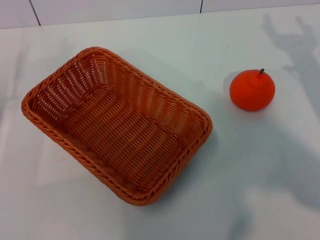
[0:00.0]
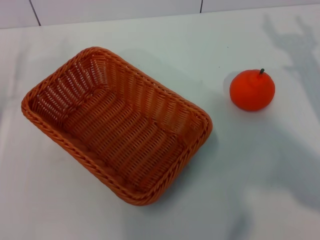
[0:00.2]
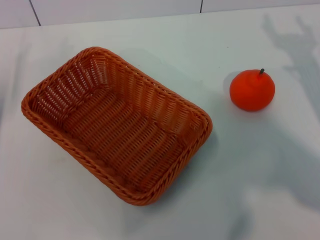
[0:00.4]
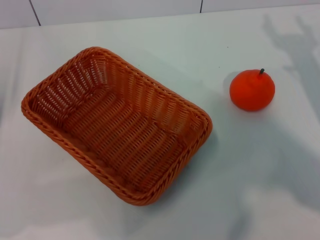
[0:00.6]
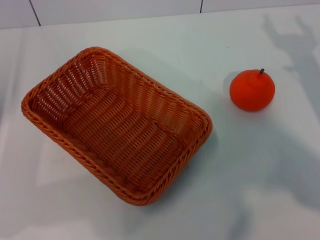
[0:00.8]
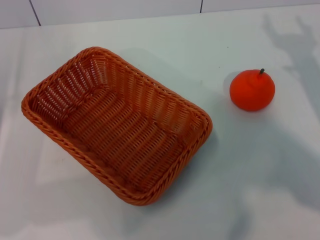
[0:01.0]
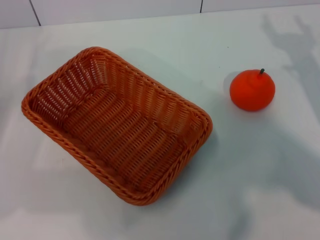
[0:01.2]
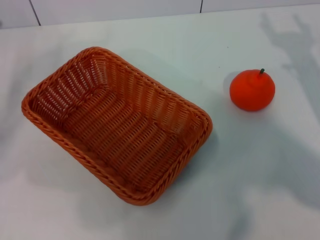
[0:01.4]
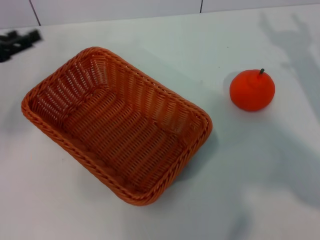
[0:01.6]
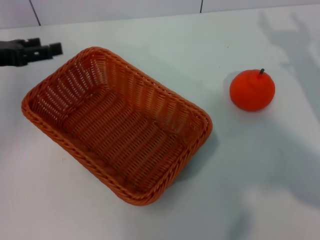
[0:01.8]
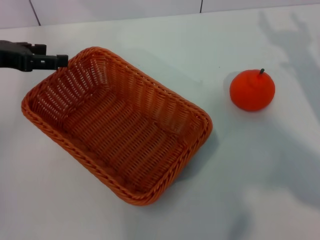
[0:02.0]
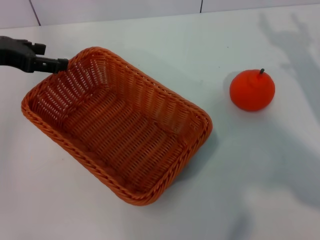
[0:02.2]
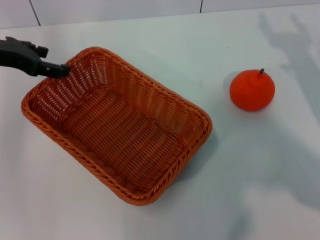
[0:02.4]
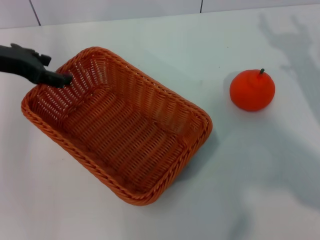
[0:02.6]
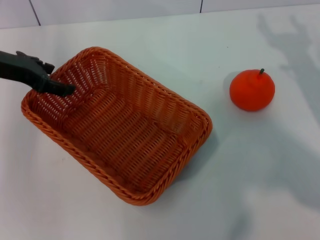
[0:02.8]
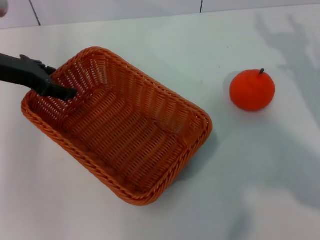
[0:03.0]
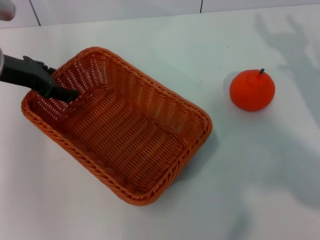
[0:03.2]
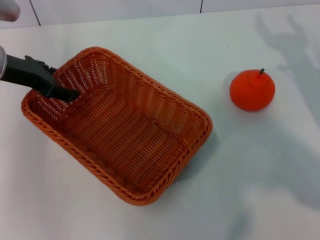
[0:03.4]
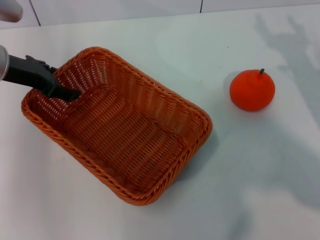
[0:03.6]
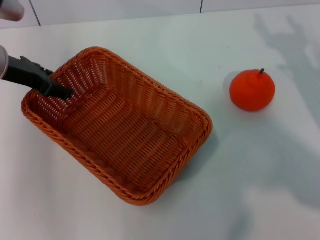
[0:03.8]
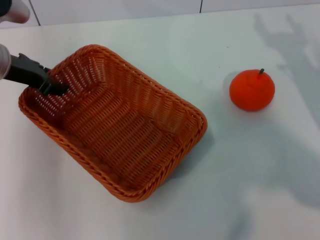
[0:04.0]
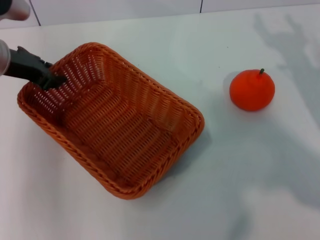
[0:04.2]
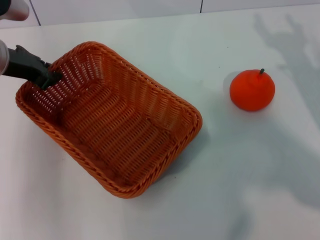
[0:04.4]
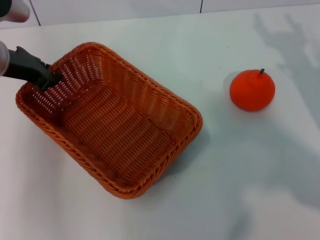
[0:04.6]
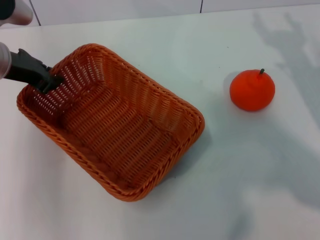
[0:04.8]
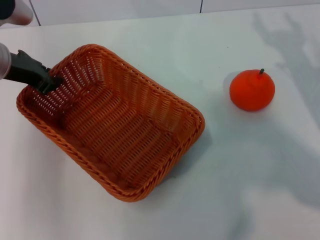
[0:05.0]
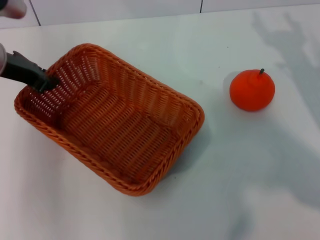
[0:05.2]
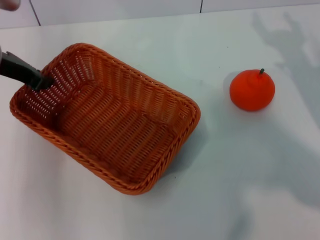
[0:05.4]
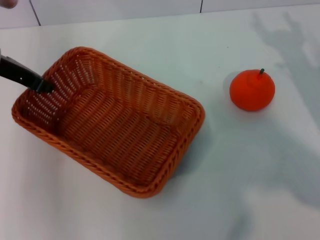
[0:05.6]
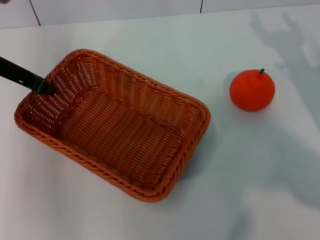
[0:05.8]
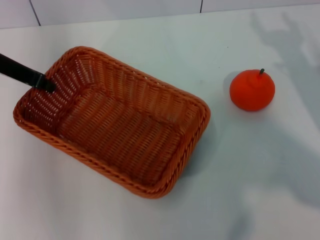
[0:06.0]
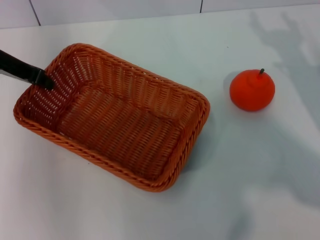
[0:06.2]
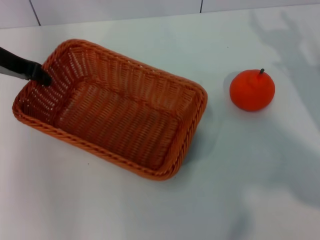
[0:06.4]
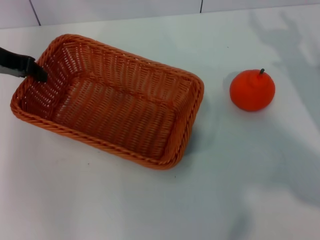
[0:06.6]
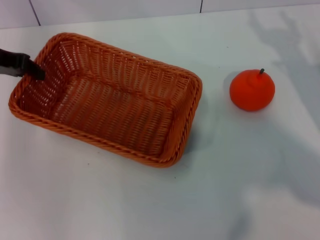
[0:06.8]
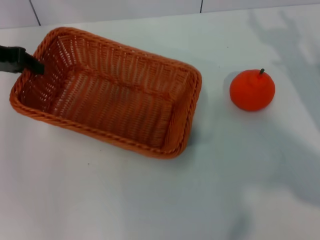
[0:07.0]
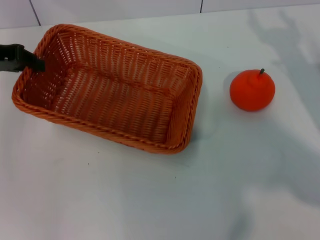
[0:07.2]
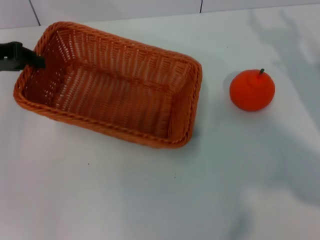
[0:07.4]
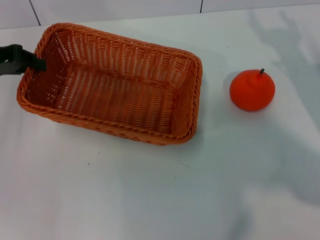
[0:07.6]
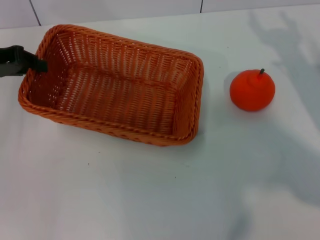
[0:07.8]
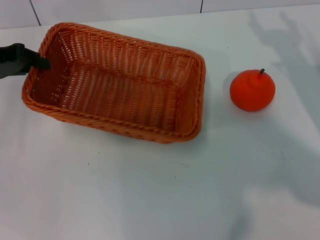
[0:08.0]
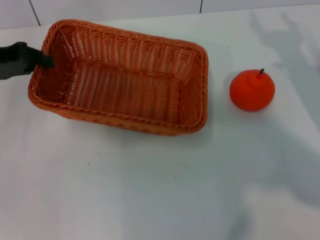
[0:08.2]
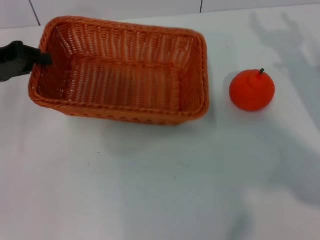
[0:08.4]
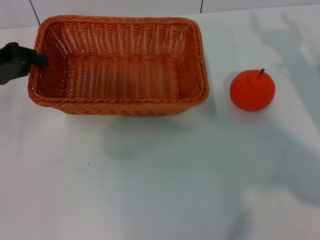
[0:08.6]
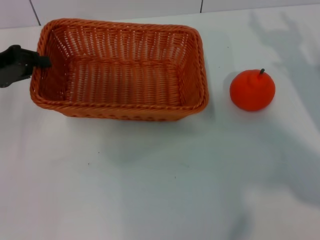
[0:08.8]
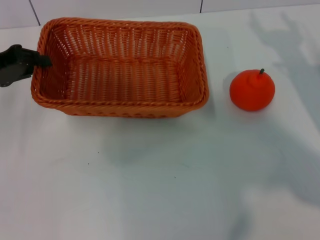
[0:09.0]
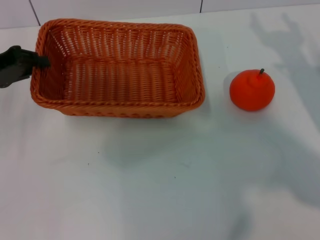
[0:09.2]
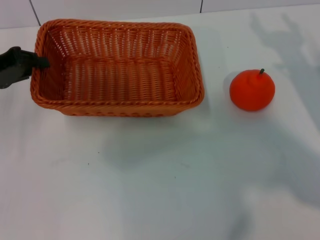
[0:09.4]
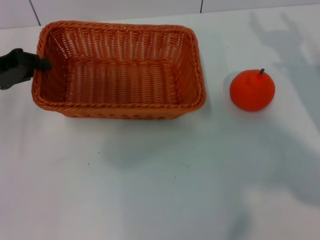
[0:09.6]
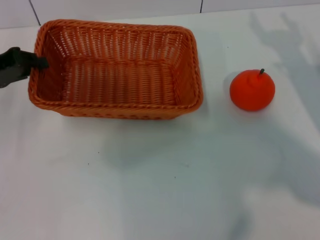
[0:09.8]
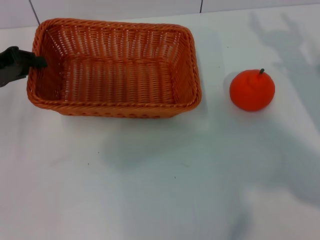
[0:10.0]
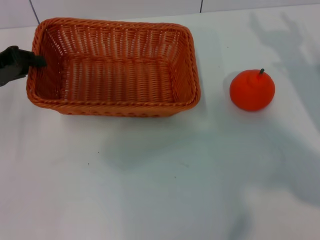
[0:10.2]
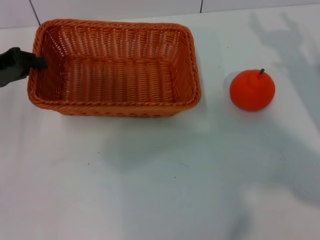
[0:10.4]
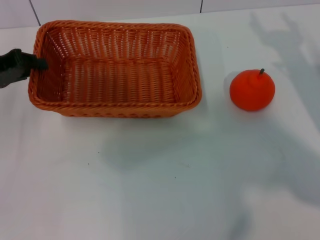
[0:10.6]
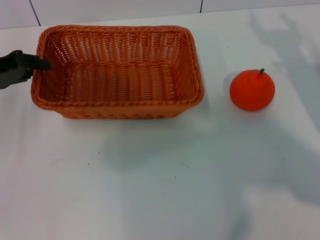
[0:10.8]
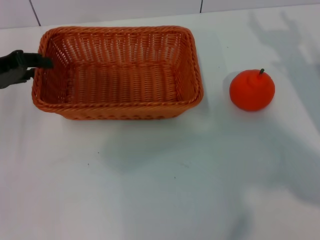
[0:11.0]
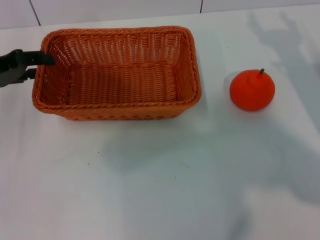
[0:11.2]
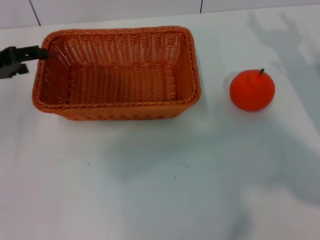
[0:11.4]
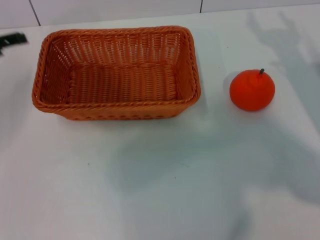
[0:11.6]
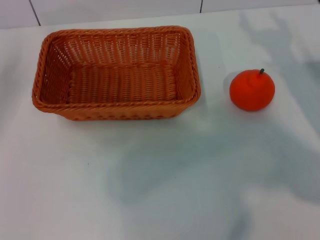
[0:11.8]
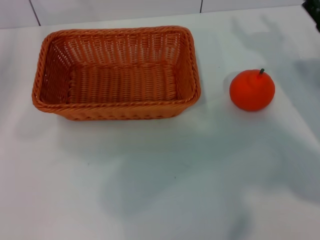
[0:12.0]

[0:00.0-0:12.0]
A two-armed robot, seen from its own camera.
Task of the whole recording: the left gripper pick up the yellow basket and place it horizontally in the middle of the table, the right gripper pick up the orange and place it into the yellow basket.
Step, 0:00.0 to 0:07.4: Pick up the light basket with the left gripper.
Step, 0:07.6 to 0:11.4: Place the light basket in the center of view with the left gripper.
0:00.0 to 0:01.6: The left gripper travels upward and forward by some 10 cm.
0:01.6 to 0:03.0: The left gripper shifts roughly 10 cm to the right and forward.
0:03.0 to 0:04.4: The left gripper closes.
0:06.0 to 0:07.6: The left gripper heads to the left, covering approximately 5 cm.
0:07.6 to 0:09.0: The grippers move only a little.
0:09.0 to 0:10.4: Both grippers stay put.
0:10.4 to 0:12.0: The left gripper opens.

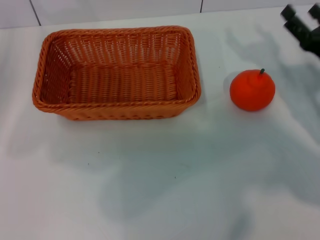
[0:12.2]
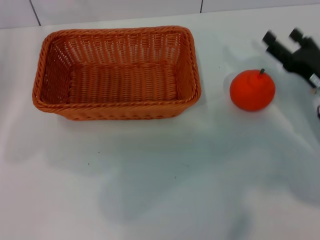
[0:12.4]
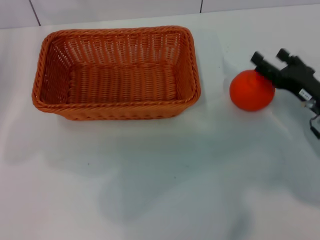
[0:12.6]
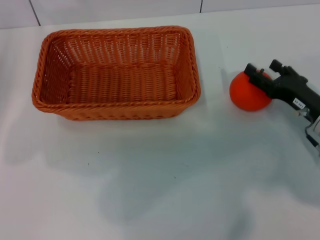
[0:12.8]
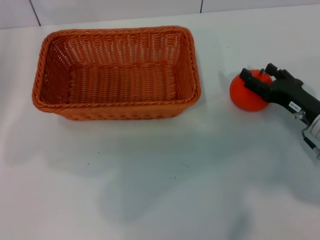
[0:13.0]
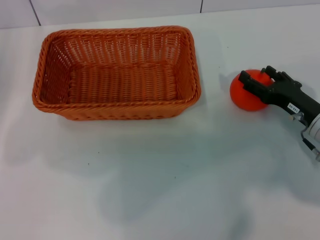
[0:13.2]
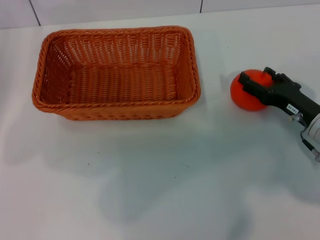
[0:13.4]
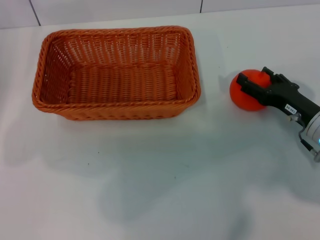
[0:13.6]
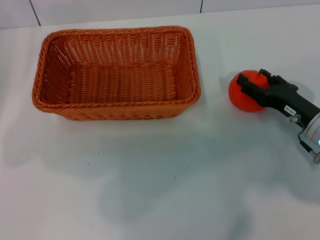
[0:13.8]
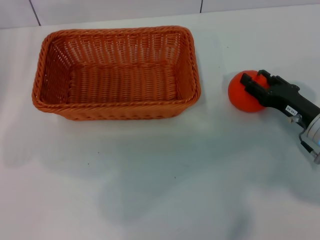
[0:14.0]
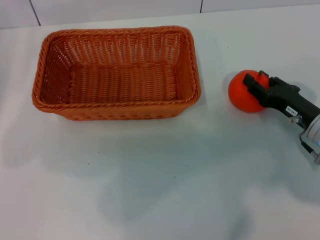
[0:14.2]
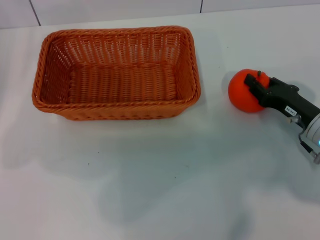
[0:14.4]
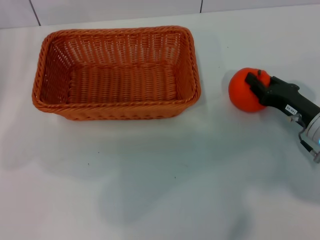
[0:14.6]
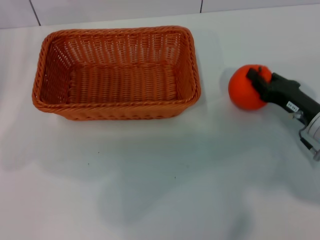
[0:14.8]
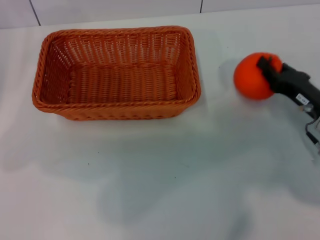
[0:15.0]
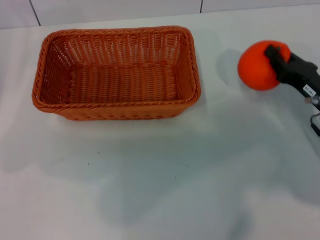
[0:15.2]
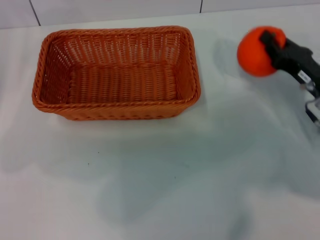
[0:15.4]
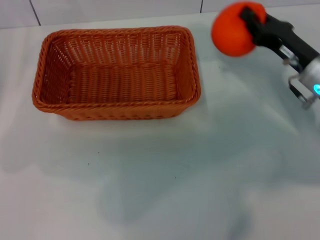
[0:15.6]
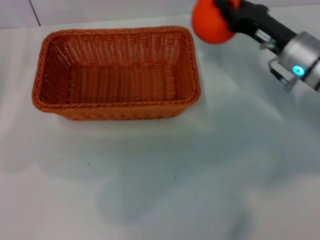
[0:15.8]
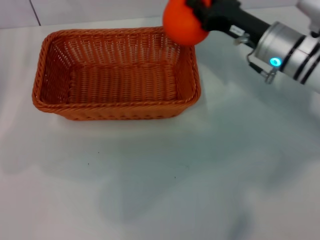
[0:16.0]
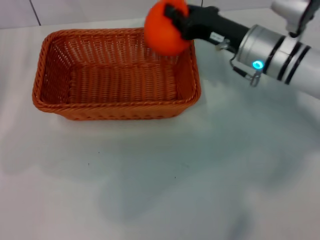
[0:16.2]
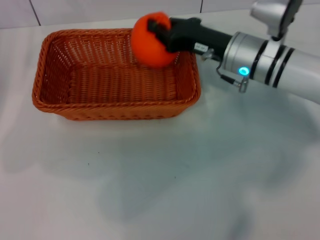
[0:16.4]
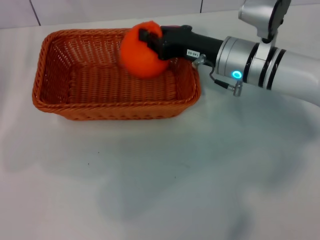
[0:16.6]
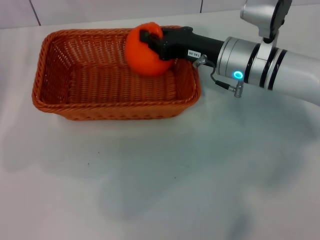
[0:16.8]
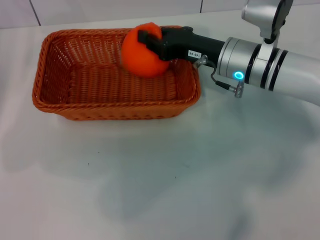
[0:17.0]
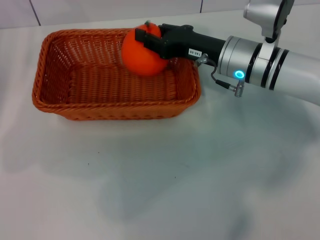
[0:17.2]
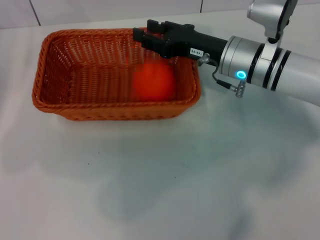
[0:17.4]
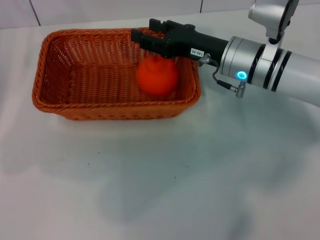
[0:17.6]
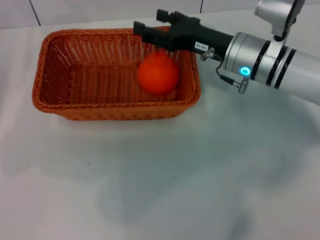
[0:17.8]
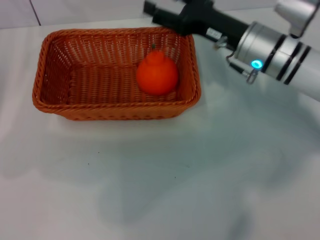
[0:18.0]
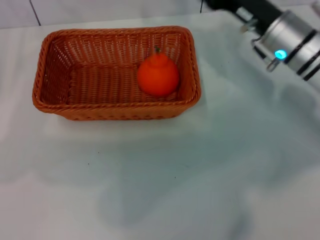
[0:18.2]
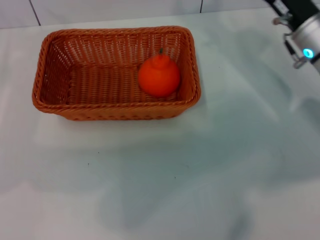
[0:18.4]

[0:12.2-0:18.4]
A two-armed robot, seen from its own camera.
Task of the whole recording: the left gripper pick up the yellow basket and place it horizontally in the middle of the table, the right gripper pick up the orange and place it into the yellow basket.
Step, 0:12.2 to 0:15.0: Pick up the orange with the right gripper.
Step, 0:15.4 to 0:17.4: Place the orange into the light basket with the right gripper.
0:12.2 to 0:13.8: The right gripper changes place by about 5 cm.
0:13.8 to 0:15.4: The right gripper closes its fingers.
0:15.4 to 0:16.8: The right gripper travels to the left and forward by some 15 cm.
0:16.8 to 0:18.4: The right gripper goes roughly 10 cm to the right, and opens up.
